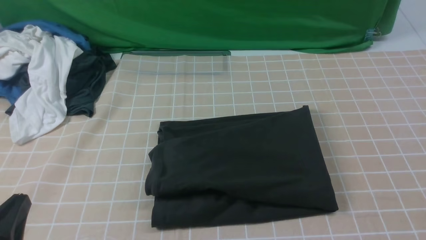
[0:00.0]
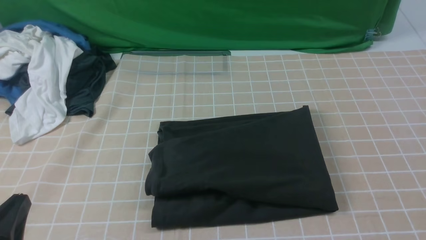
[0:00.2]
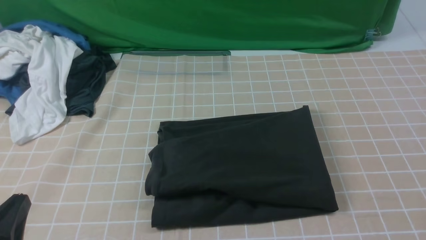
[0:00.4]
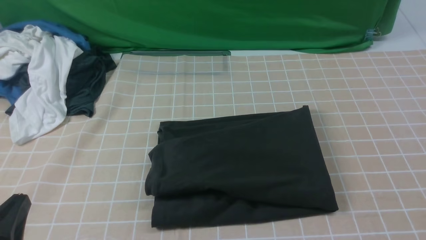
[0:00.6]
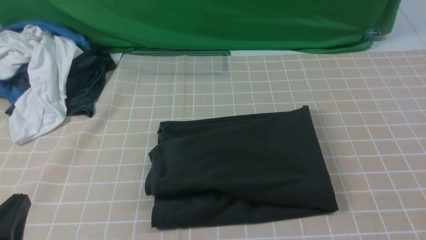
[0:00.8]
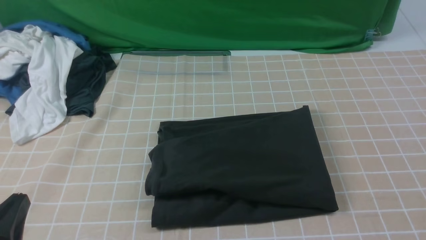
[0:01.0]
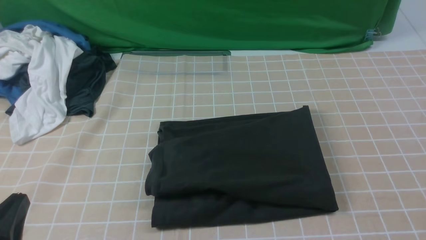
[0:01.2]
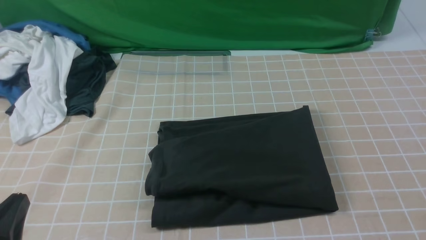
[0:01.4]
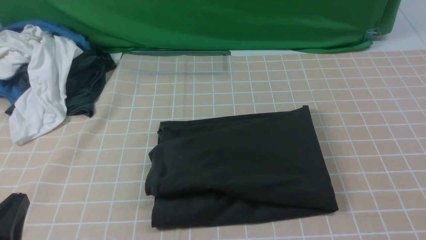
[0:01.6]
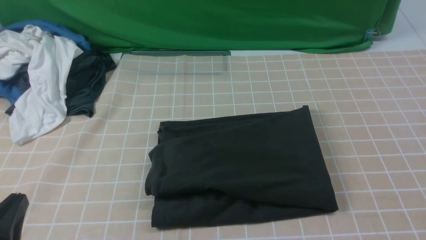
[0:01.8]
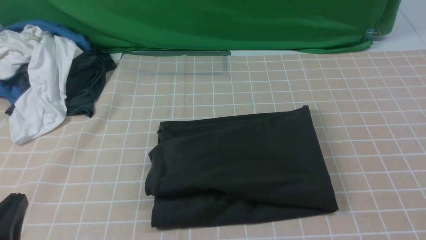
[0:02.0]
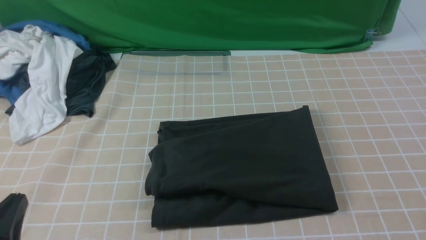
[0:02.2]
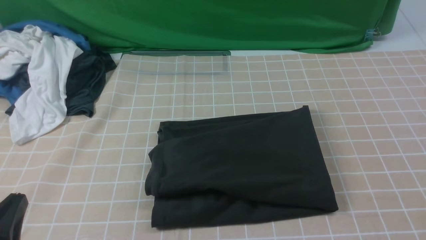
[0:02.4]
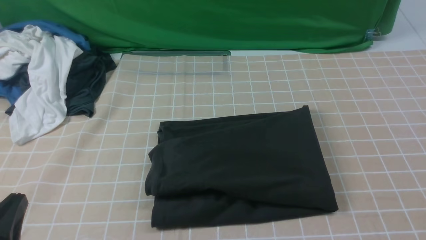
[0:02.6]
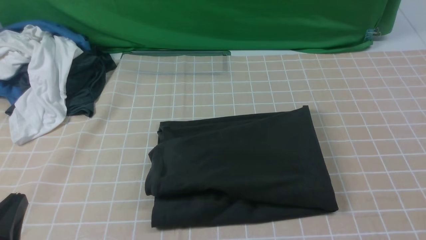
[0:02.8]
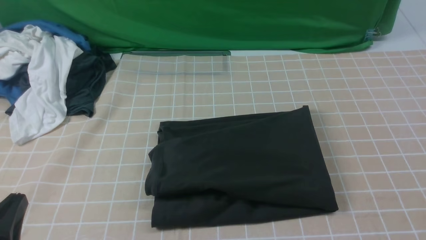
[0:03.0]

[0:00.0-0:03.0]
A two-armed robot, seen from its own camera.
0:01.6 to 0:03.0: Both grippers stay put.
